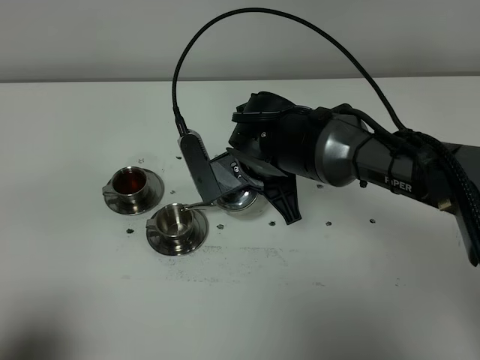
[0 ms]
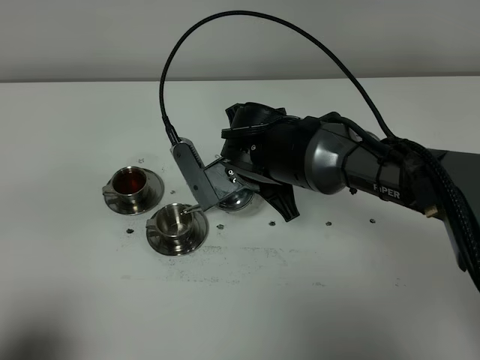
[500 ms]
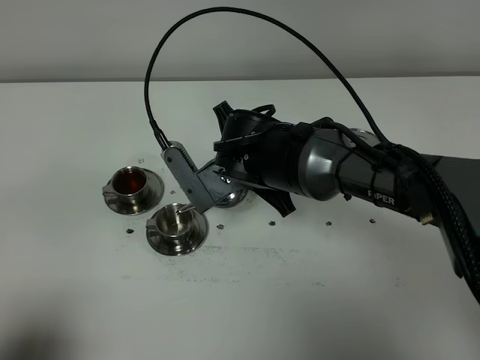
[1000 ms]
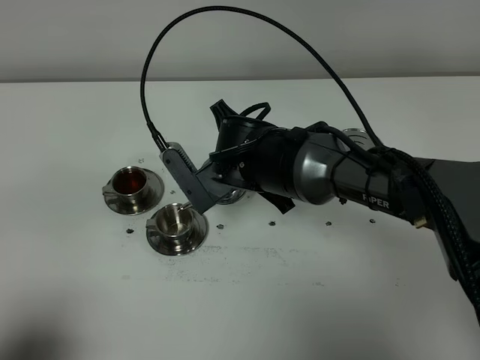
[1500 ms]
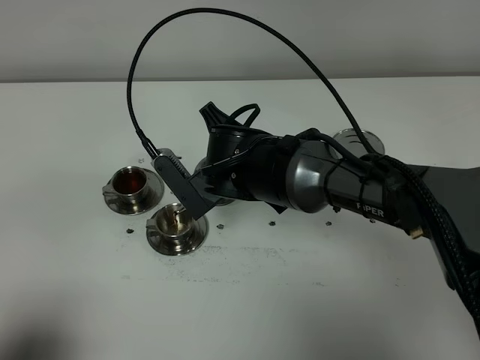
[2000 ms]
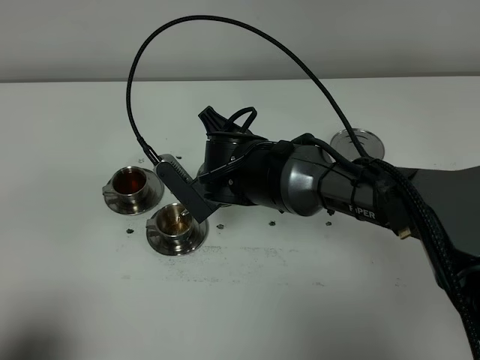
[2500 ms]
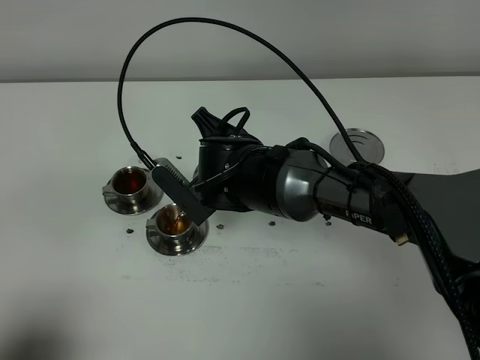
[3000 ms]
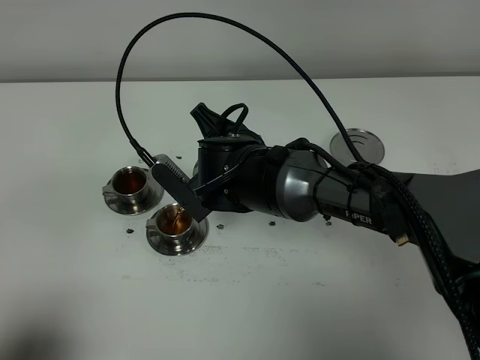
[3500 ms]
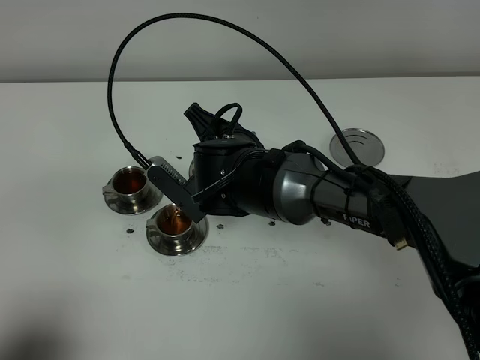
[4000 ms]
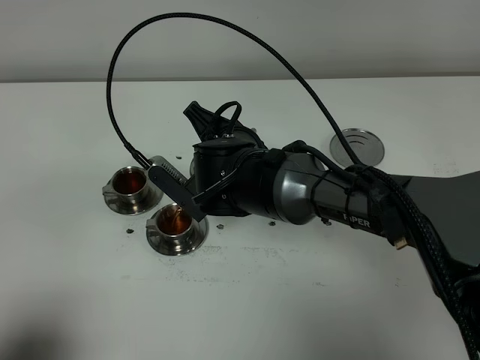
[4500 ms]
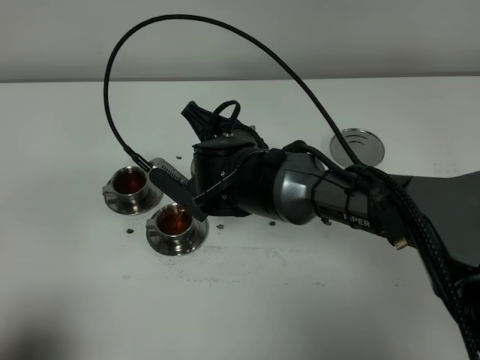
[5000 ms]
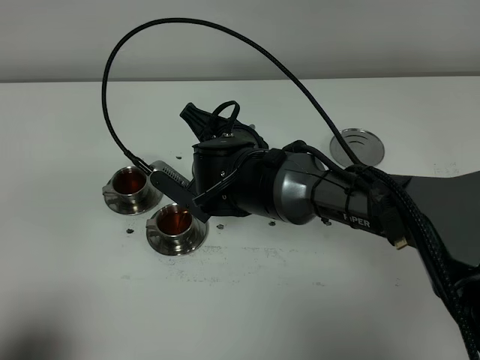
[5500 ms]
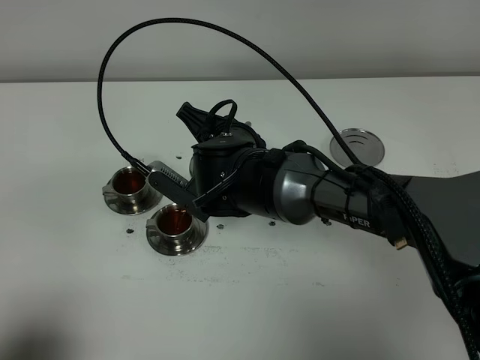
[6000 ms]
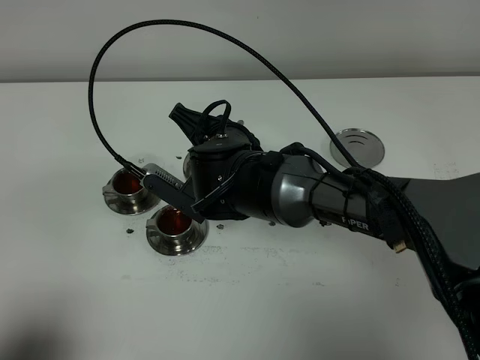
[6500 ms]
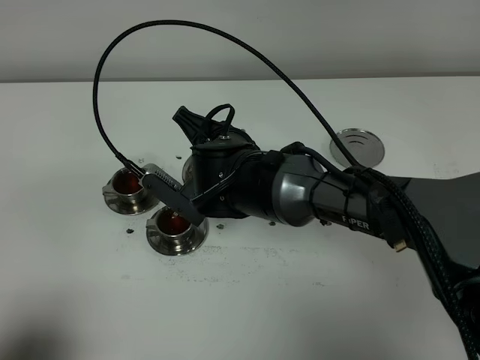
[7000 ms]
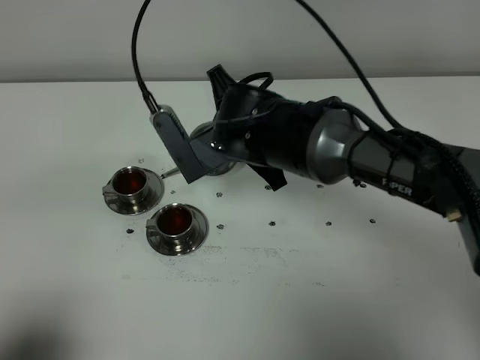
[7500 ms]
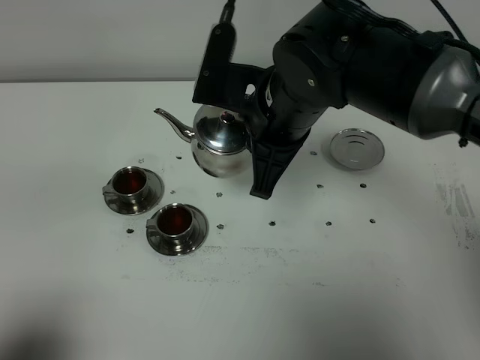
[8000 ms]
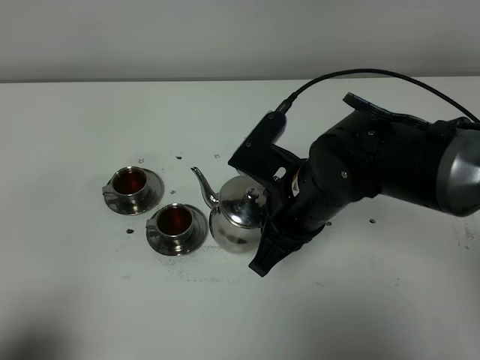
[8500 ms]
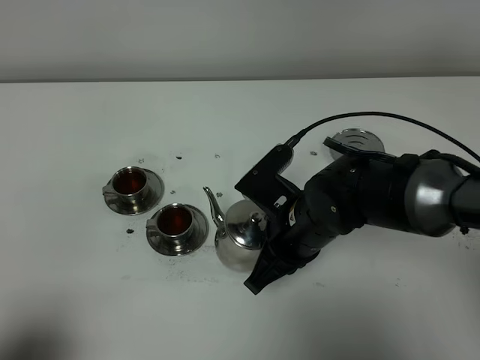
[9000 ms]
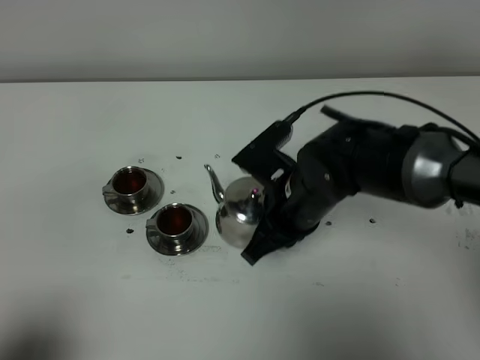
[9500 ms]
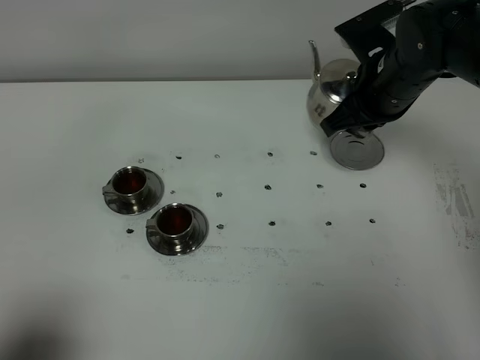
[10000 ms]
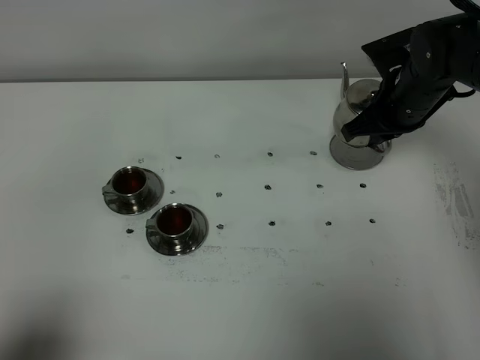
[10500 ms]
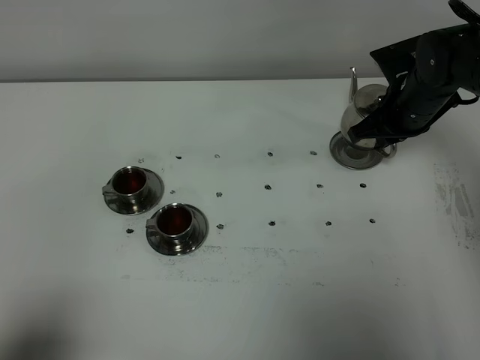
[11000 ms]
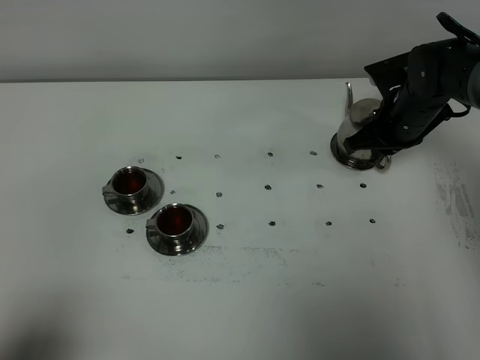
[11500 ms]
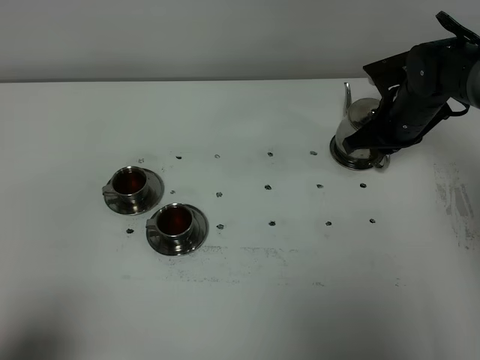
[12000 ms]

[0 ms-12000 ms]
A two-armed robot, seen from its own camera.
Task of the whole recording: grasp the stainless steel teapot and pour the tea into the two stainless steel teacups one by one, put the stainless steel teapot back in its original place.
Step, 0 ms to 7000 ms: Pour tea into the teacup with the right gripper.
0 ms to 2000 ms: There are only small adjustments of the grippers.
2000 ms to 6000 ms: The grippers make only small movements.
6000 ms to 8000 ms: The right gripper moves upward and to the right, roughly 10 cm.
8000 ms to 10000 ms: The right gripper shifts roughly 15 cm to the right and forward, and moves roughly 15 cm downward and comes back.
10000 ms to 12000 ms: The right gripper travels downward by approximately 10 cm.

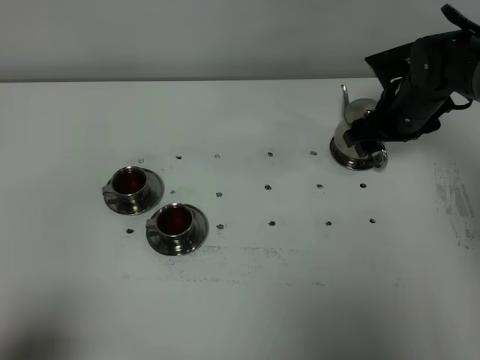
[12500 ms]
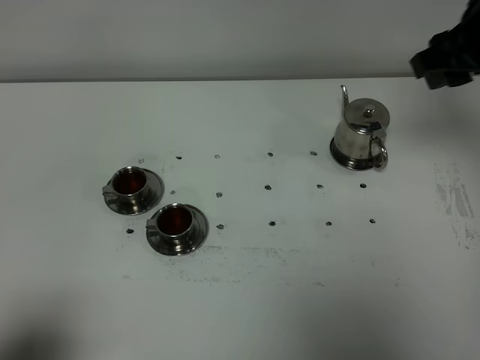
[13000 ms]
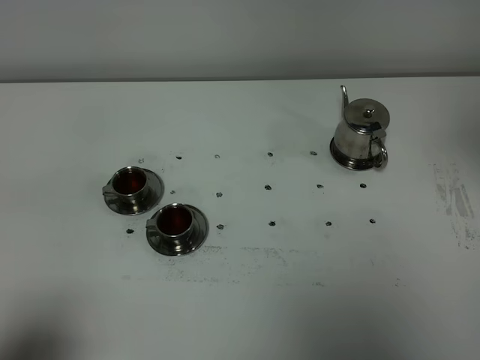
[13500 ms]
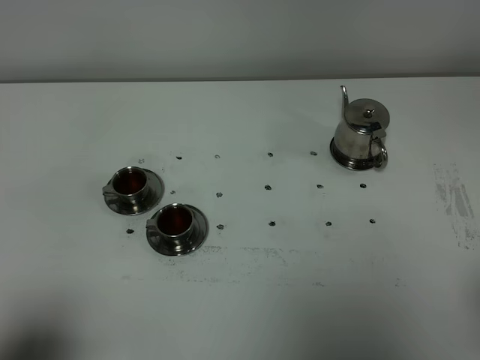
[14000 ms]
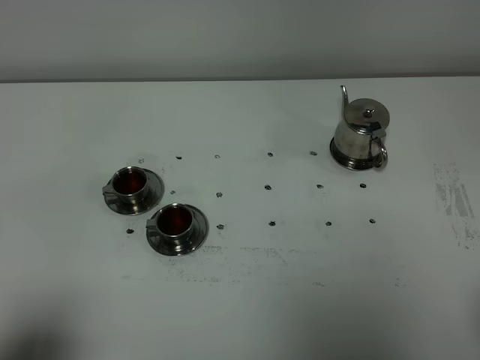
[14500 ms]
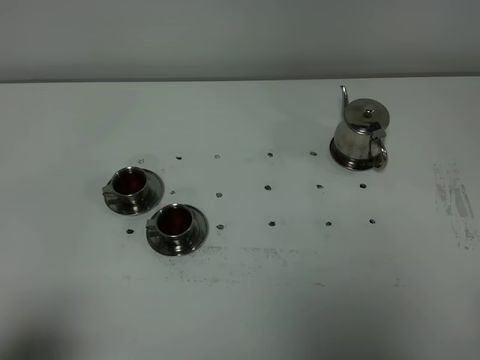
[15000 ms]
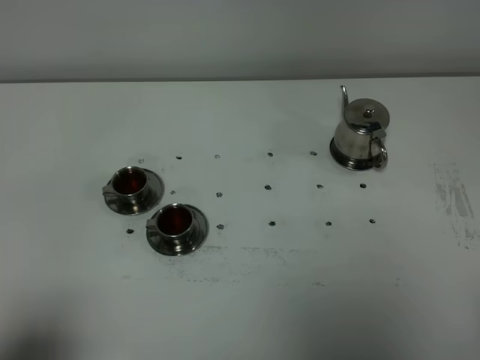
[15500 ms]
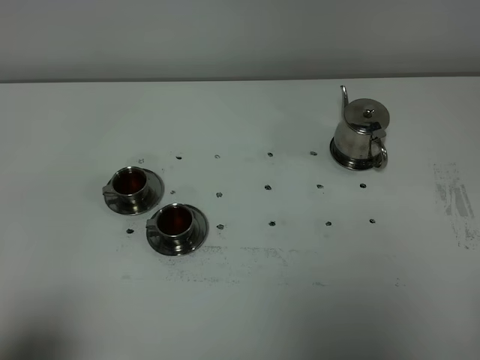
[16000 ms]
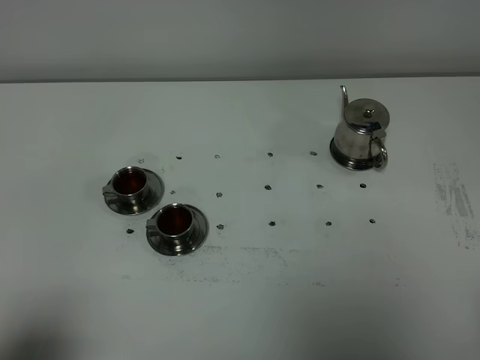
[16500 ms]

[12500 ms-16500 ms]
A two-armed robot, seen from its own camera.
Task of the whole recording: grasp the stainless steel teapot and pour the tea into the two stainless steel teacups one by one, put the stainless steel teapot back in its original place.
12500 ms to 14500 ms: The right gripper heads backward, covering approximately 40 cm, and closes its fingers.

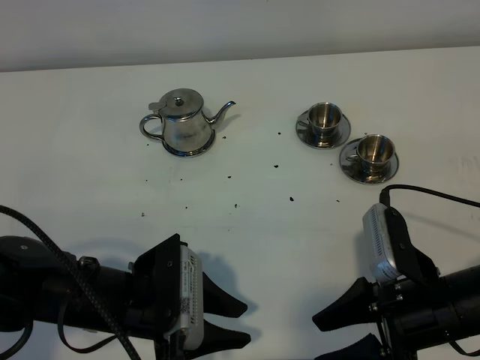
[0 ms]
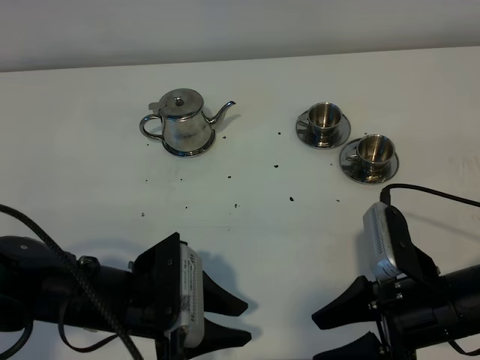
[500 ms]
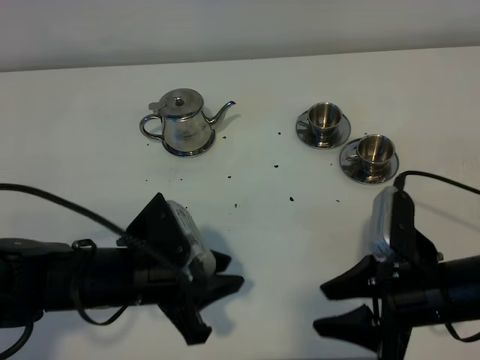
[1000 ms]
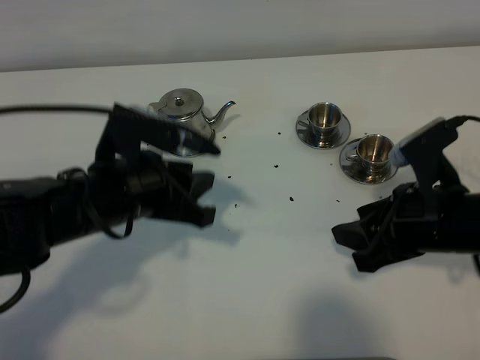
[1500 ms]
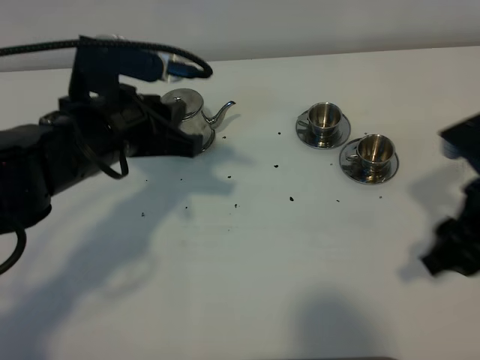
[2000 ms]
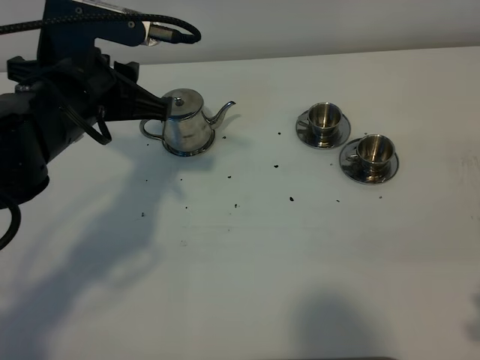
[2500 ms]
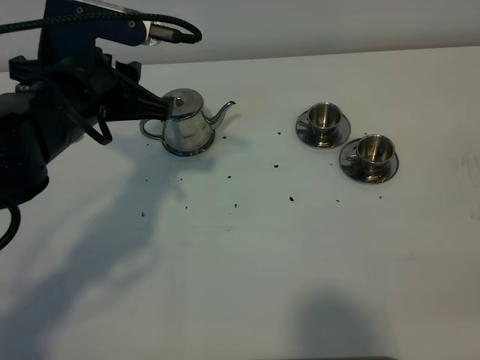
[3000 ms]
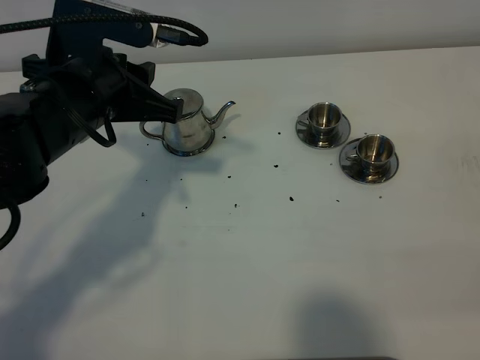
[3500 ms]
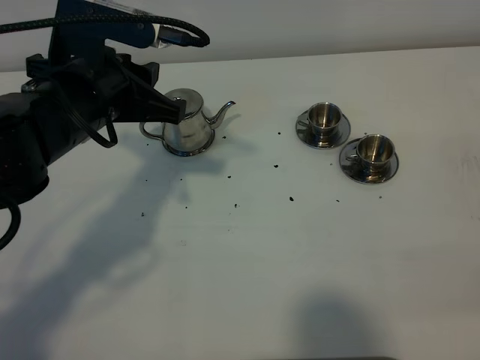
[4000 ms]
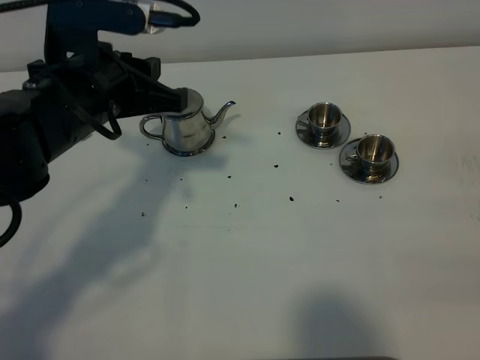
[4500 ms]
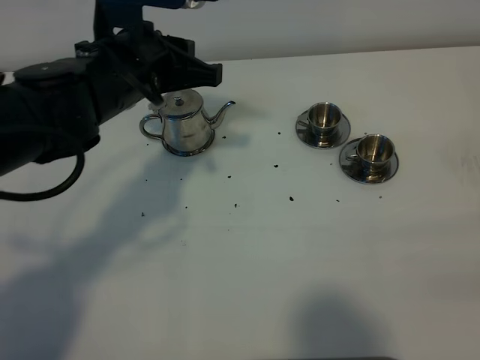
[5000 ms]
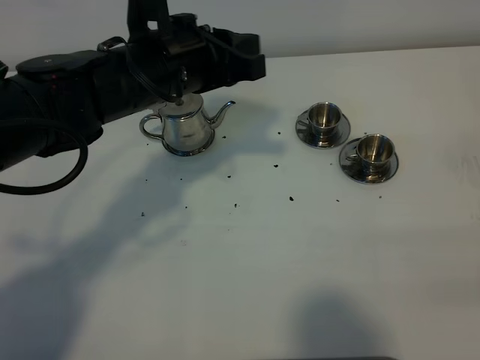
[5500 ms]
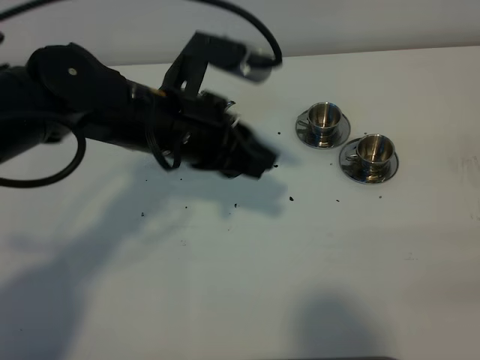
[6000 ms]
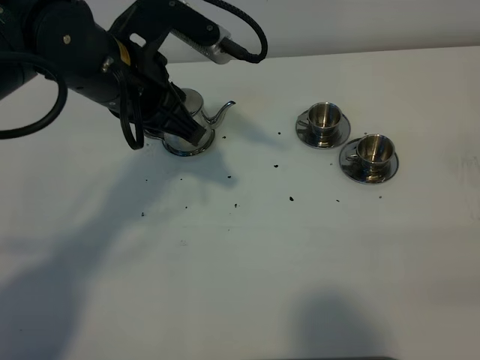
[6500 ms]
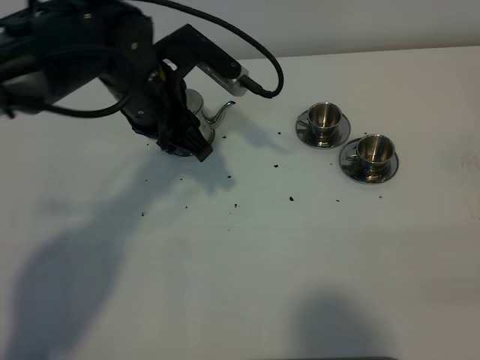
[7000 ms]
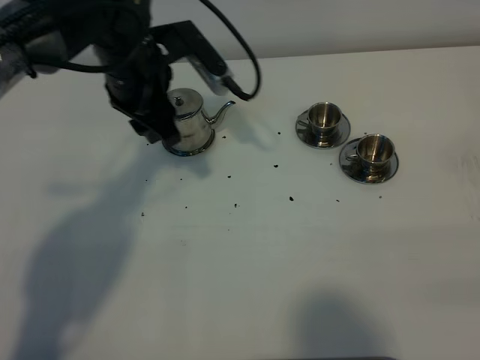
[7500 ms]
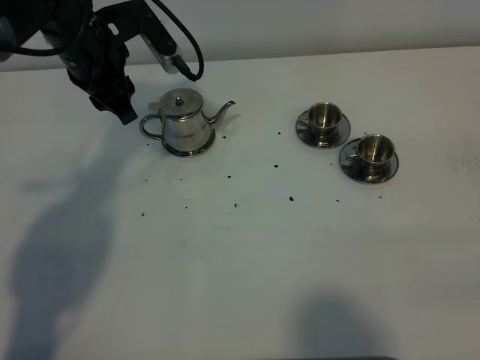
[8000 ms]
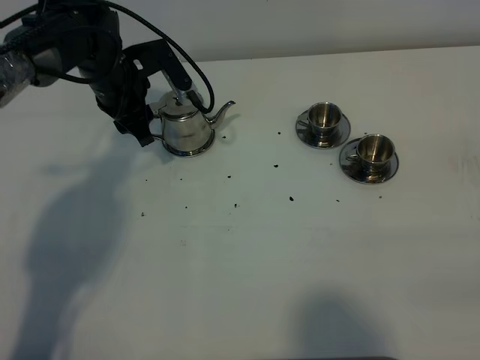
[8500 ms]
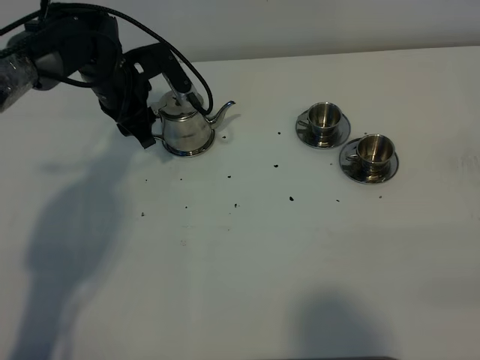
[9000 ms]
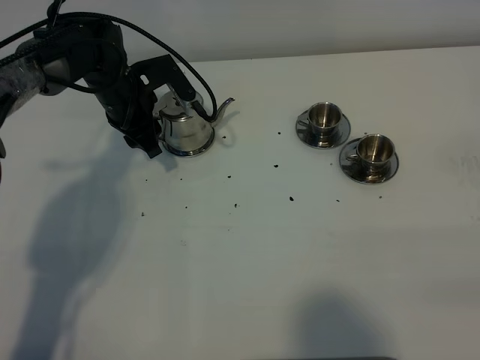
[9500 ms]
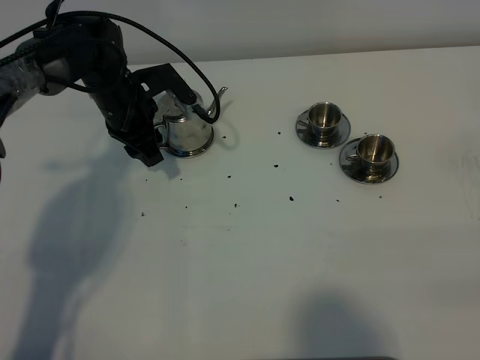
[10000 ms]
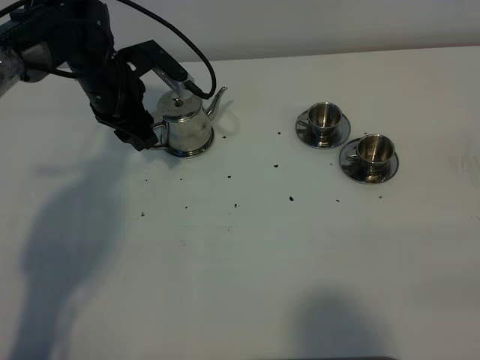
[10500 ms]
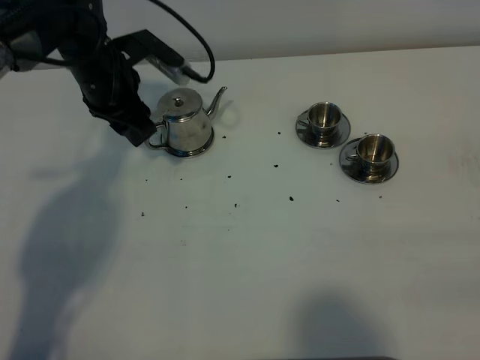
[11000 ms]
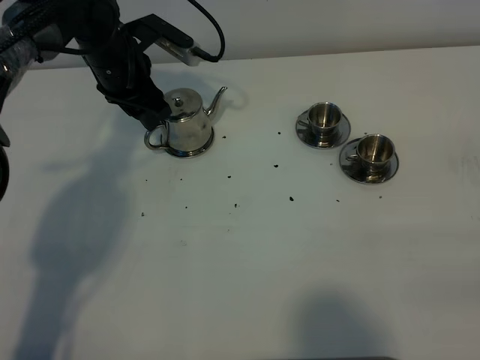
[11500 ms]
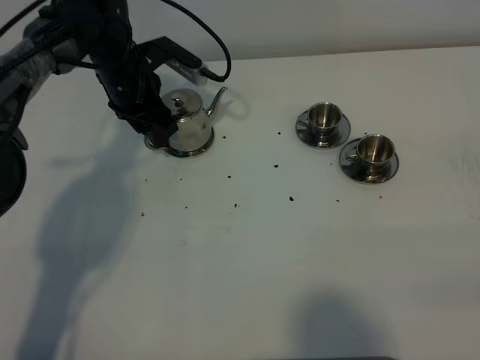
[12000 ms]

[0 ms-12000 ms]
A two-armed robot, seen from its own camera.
Task of the whole recording: grasp the stainless steel teapot and pour the tea into the two stainless steel teacups one by one, put the stainless steel teapot back in its original place.
0 ms to 2000 ms: The left gripper travels forward and upward by roughly 15 cm; the right gripper is displaced upward and to the right by roughly 10 cm.
2000 ms to 4000 ms: The right gripper shifts approximately 15 cm backward and to the right.
4000 ms to 6000 ms: The left gripper is displaced to the right by some 10 cm.
6000 ms to 8000 ms: The left gripper moves forward and to the left, approximately 15 cm, and opens its fingers.
8000 ms to 10000 ms: The left gripper shifts about 10 cm downward.
